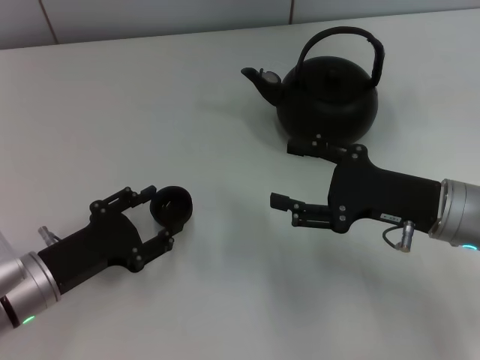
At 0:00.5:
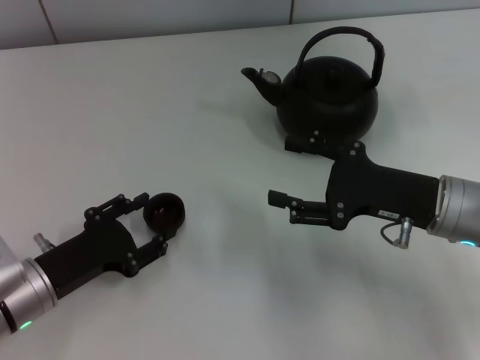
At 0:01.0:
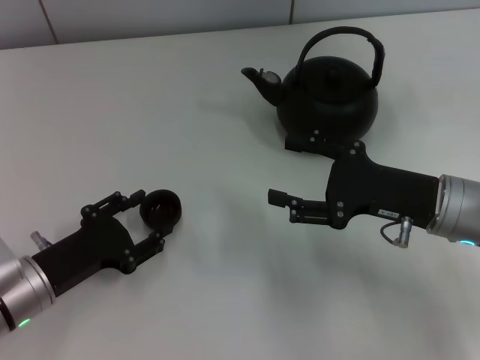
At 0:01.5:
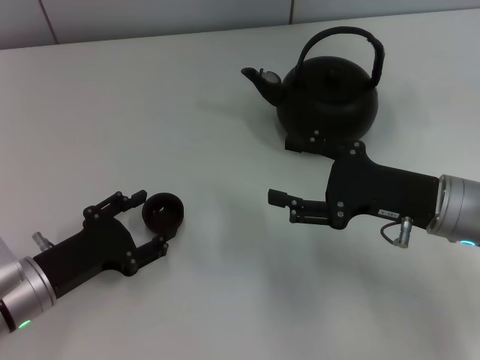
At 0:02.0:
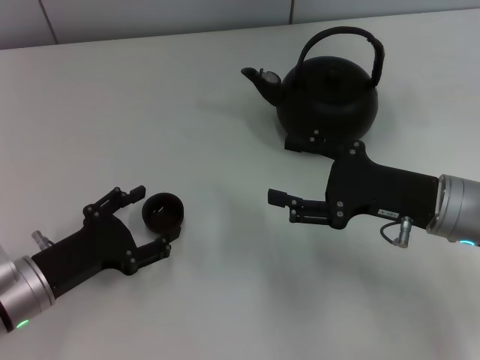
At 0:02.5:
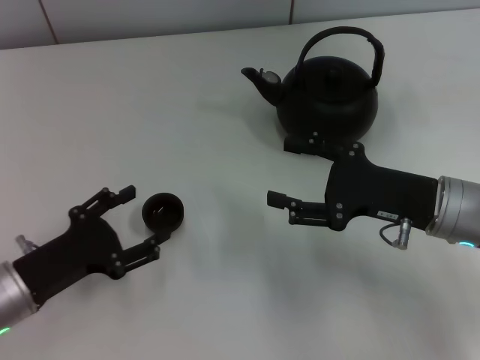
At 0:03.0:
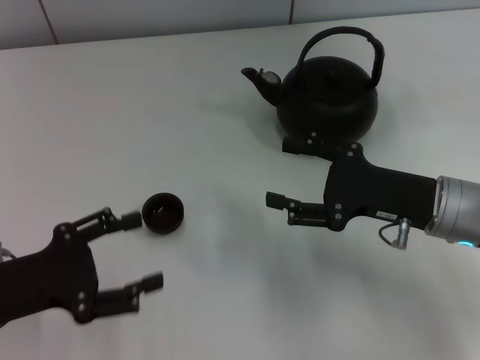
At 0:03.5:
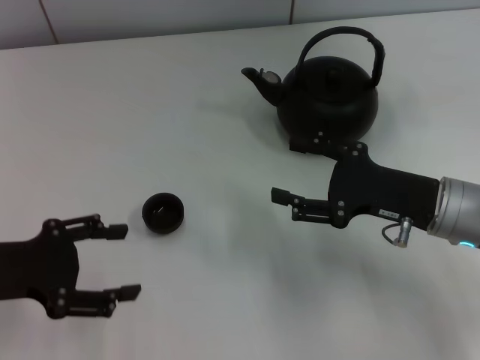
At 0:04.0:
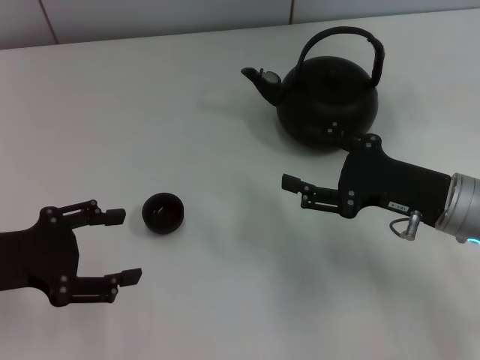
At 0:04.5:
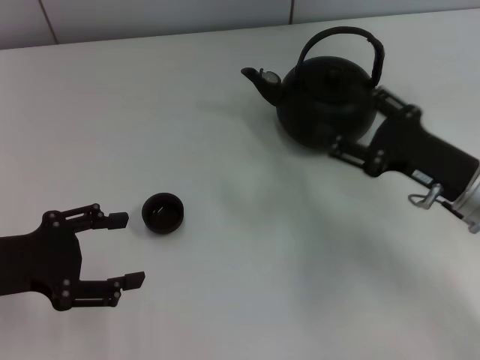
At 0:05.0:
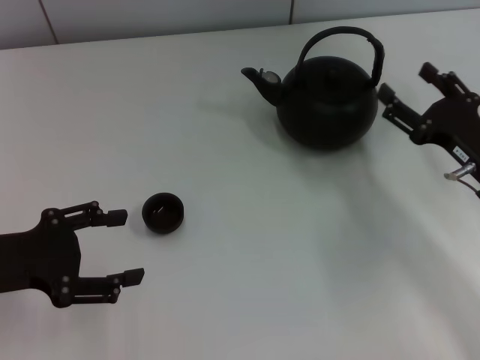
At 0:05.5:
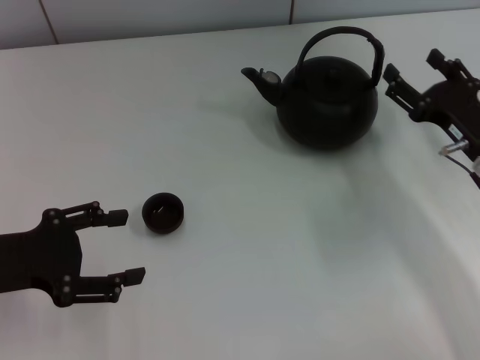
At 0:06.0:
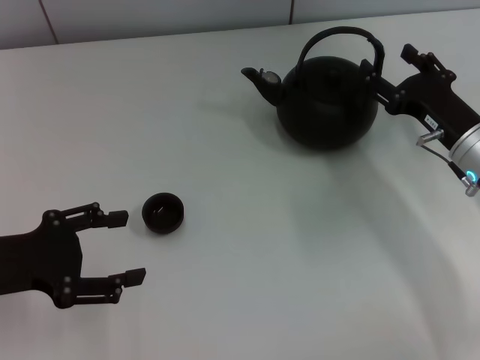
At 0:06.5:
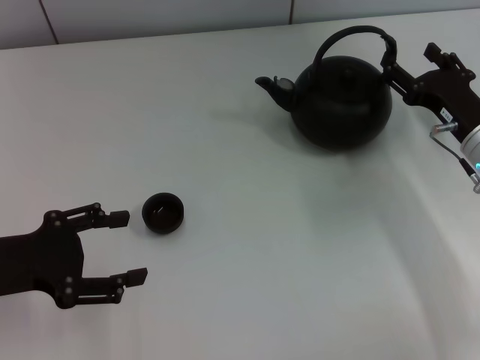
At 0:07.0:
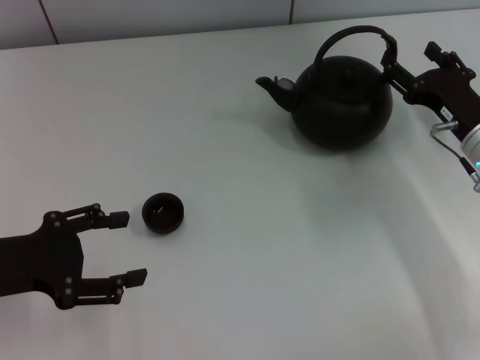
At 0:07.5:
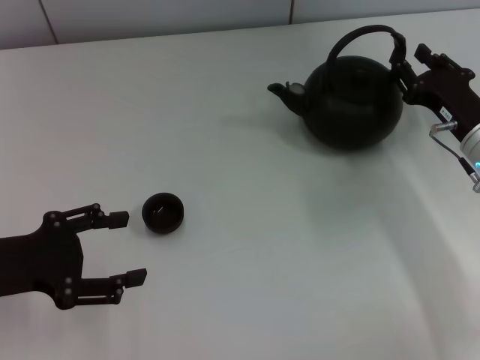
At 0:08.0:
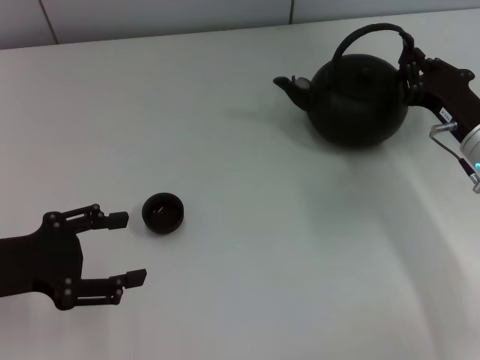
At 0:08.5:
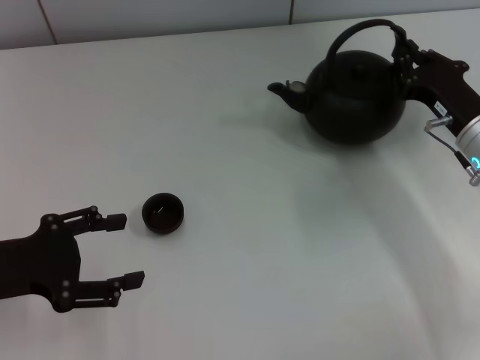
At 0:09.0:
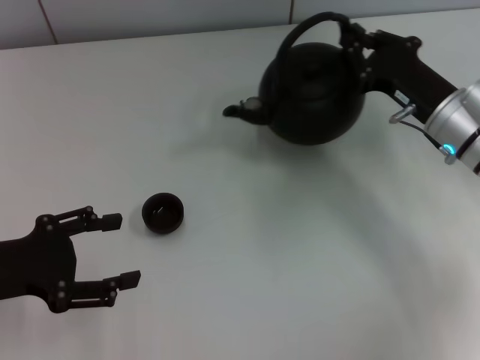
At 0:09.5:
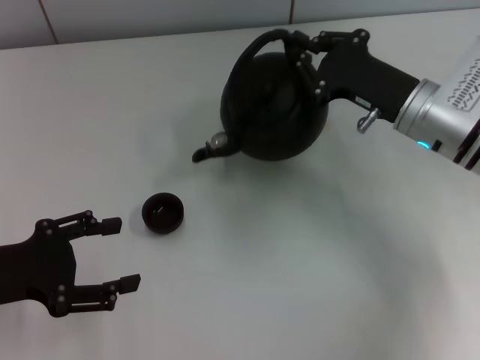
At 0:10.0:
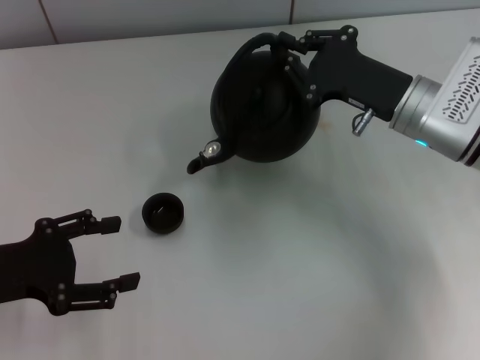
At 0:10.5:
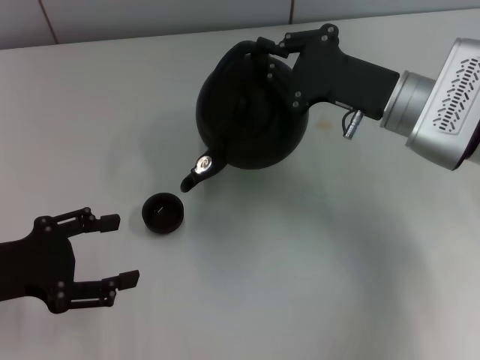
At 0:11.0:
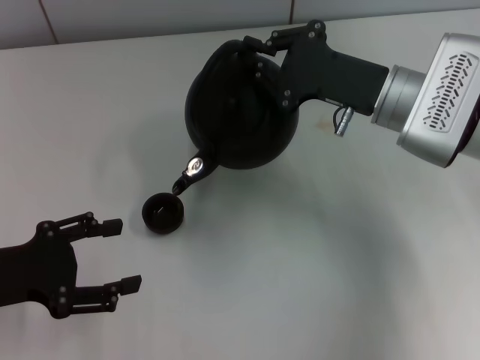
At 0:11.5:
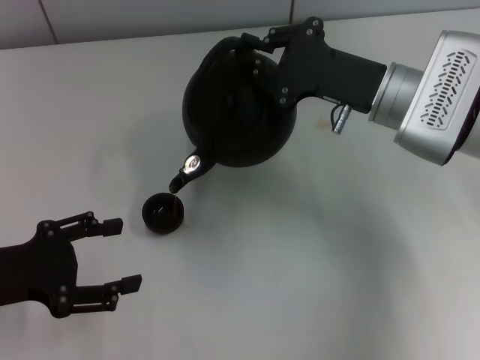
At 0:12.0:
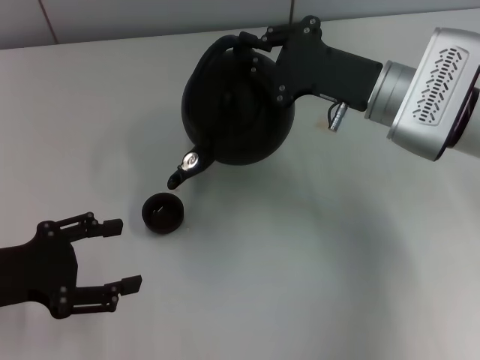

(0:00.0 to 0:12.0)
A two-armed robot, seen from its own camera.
Task of the whole recording: Grasp the handle of the teapot with one hand and pour tea into the teacup.
Step, 0:00.0 - 0:02.5: Place the teacup in the center of view with the left gripper.
Step, 0:03.0 - 0:08.5: Pick up the teapot with the right gripper.
0:00.0 - 0:02.0: The left gripper opens up.
0:02.0 - 0:04.0: The left gripper shifts roughly 10 cm upward.
0:04.0 - 0:06.0: The right gripper ends up about 5 cm from where it was.
0:06.0 - 0:08.0: The right gripper closes up.
0:08.0 - 0:10.0: The right gripper travels to the left and upward by approximately 10 cm.
0:10.0 - 0:12.0: The grippers stay close to where they were, moving slightly.

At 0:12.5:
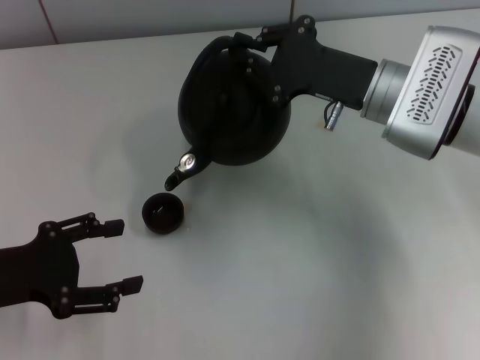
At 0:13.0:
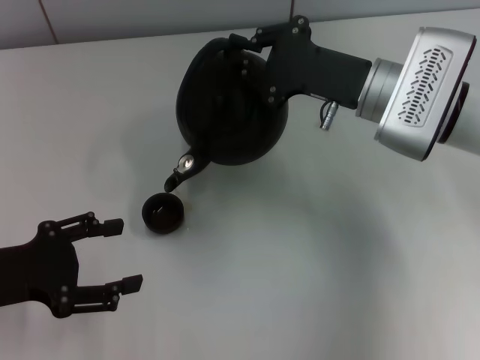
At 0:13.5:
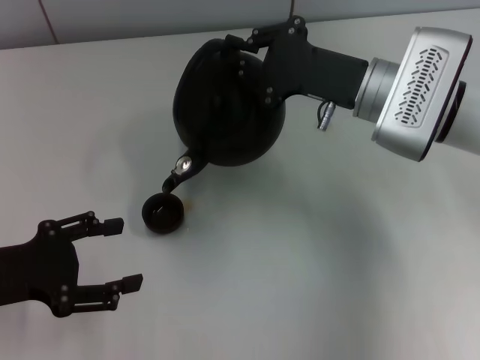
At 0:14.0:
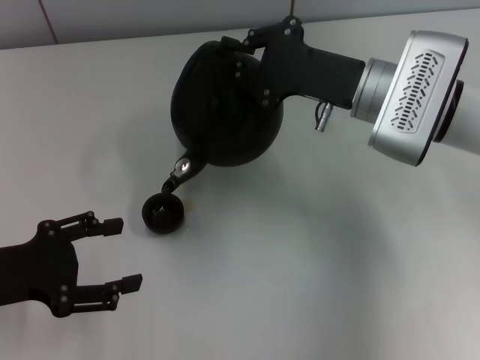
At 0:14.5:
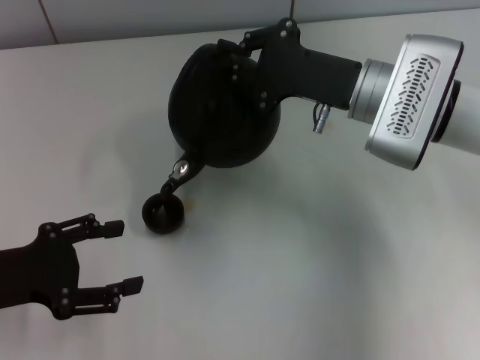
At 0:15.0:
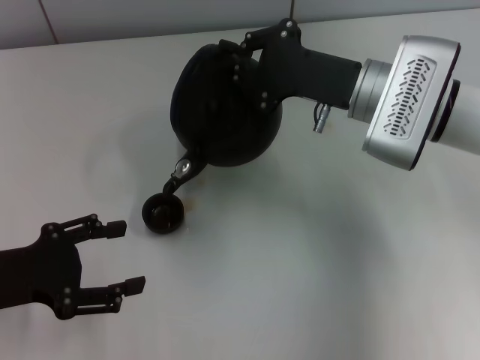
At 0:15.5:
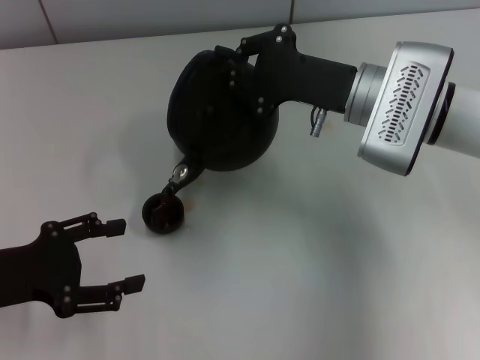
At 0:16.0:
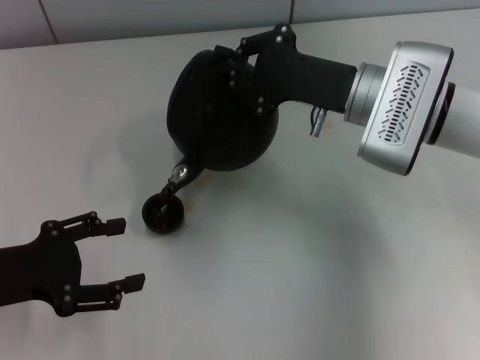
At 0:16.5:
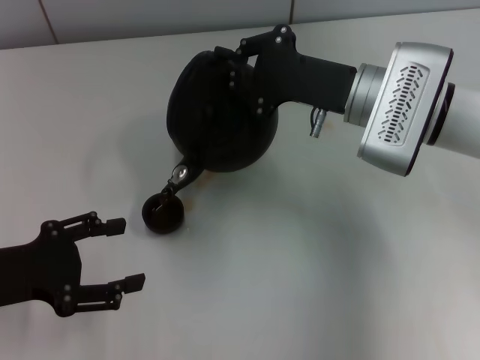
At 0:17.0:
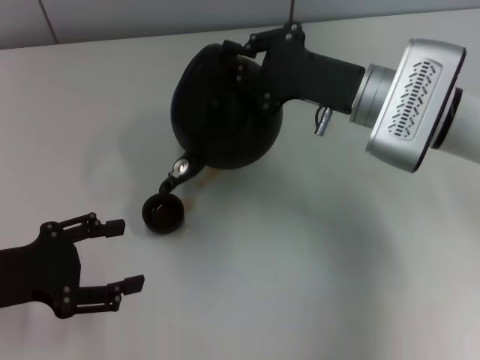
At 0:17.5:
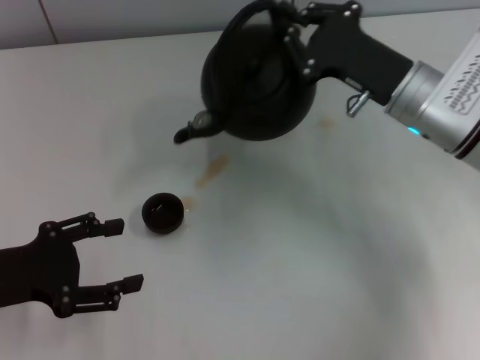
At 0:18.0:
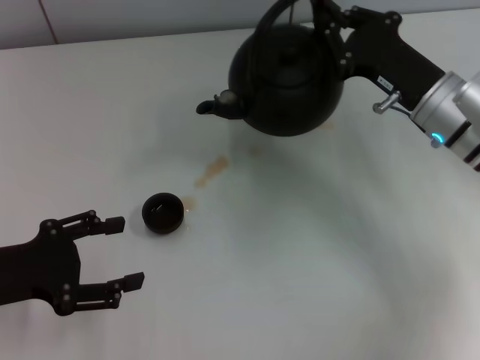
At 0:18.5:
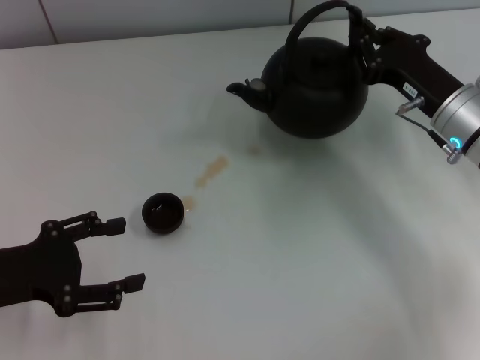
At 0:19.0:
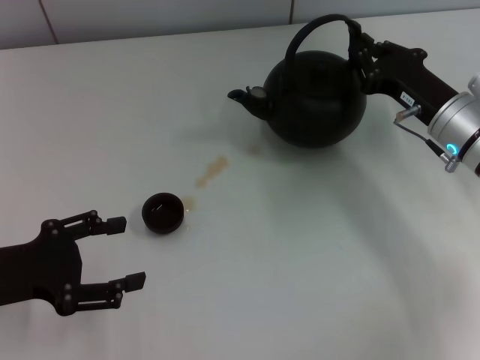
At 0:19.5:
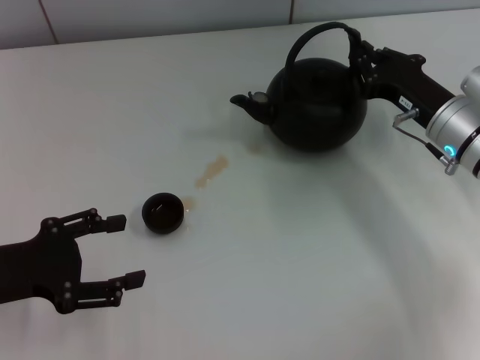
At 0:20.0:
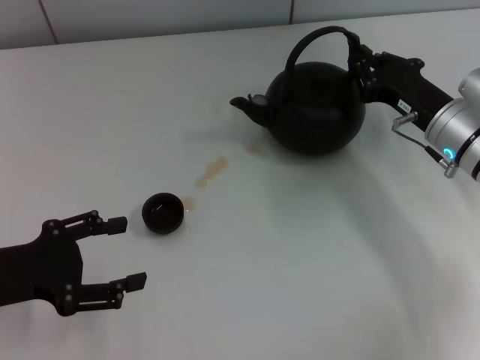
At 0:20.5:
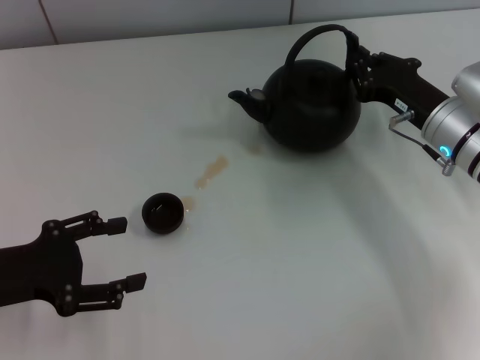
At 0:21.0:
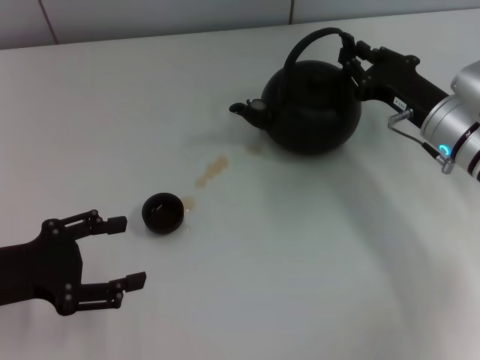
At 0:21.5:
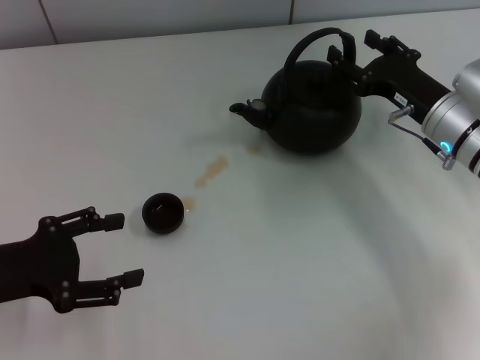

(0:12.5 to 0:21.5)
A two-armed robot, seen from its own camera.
Task of the whole recording: Grasp the handle of the teapot with one hand and pour tea into the teacup.
0:12.5 - 0:14.5: The grippers make only small movements.
0:14.5 - 0:17.0: The two grippers keep their place.
0:17.0 - 0:19.5: The right gripper goes some 10 cm to the right and downward.
0:19.5 - 0:21.5: The right gripper opens.

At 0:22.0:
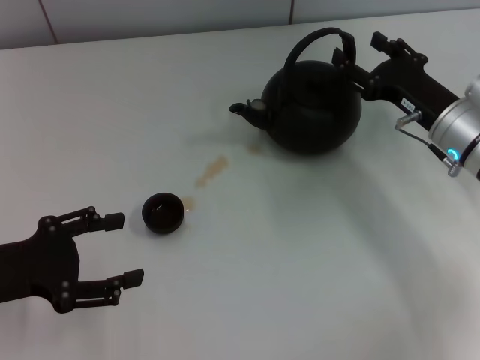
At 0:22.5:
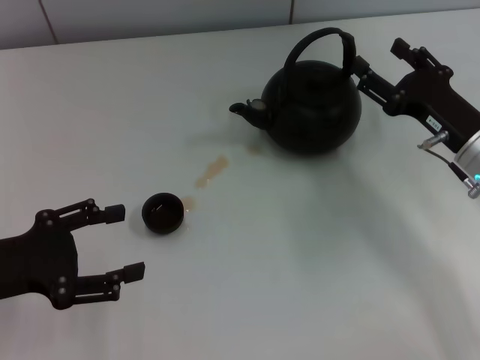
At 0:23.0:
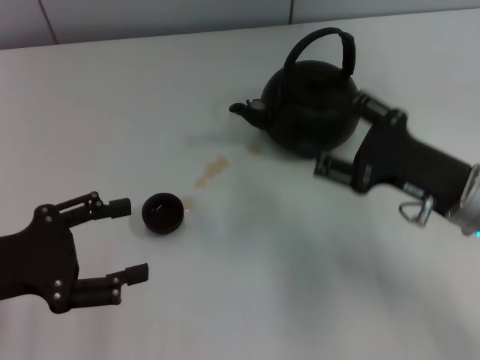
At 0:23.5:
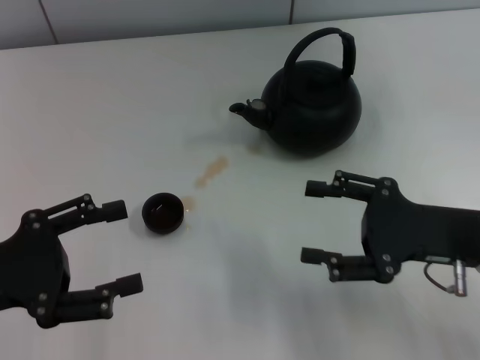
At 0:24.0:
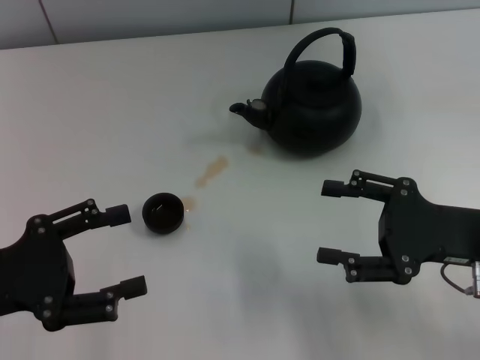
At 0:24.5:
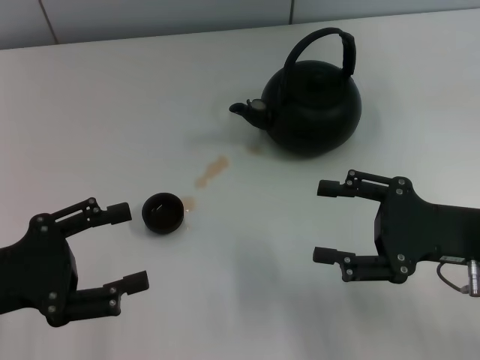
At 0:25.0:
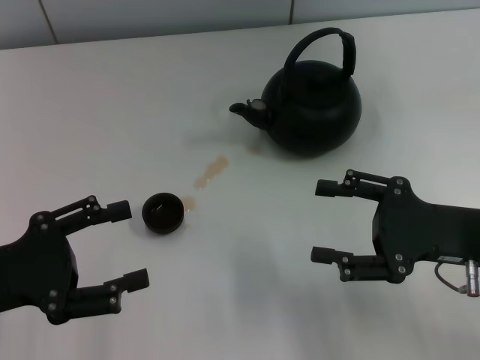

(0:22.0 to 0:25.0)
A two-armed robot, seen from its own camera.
Task of the whole recording: Grasp the handle of the teapot with one hand and pour tea into the teacup.
0:22.0 - 0:23.5: The right gripper moves backward, roughly 10 cm.
0:23.5 - 0:25.0: The grippers make only small movements.
